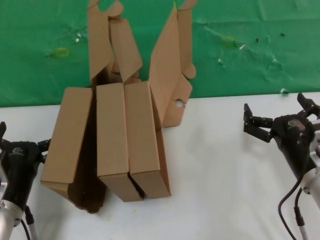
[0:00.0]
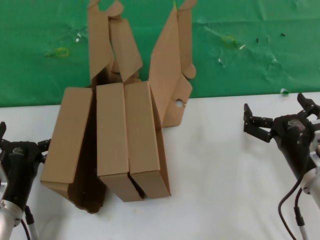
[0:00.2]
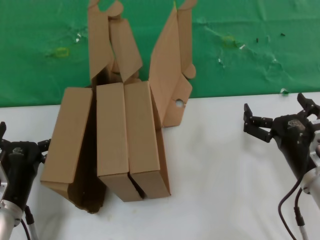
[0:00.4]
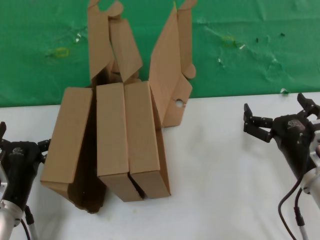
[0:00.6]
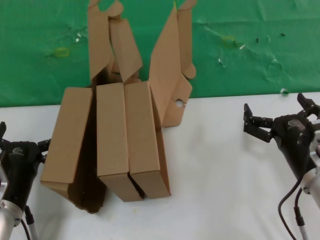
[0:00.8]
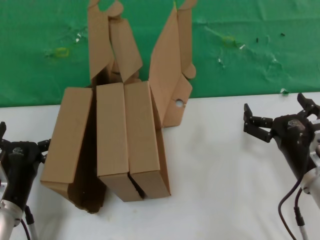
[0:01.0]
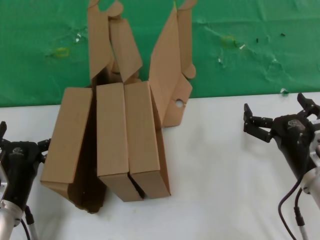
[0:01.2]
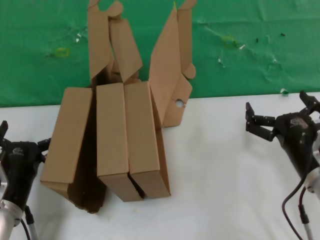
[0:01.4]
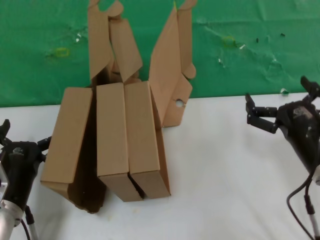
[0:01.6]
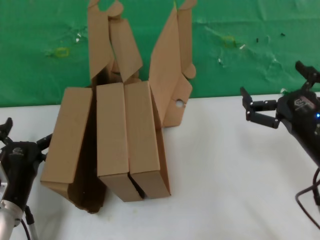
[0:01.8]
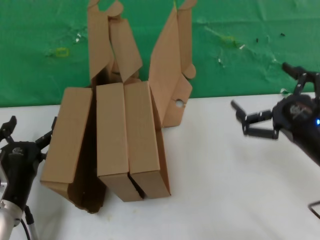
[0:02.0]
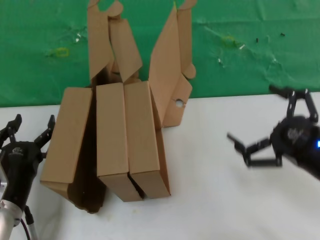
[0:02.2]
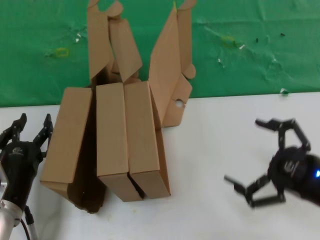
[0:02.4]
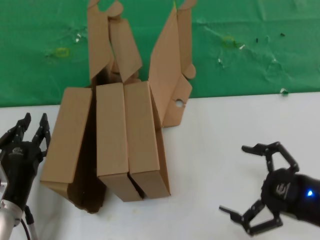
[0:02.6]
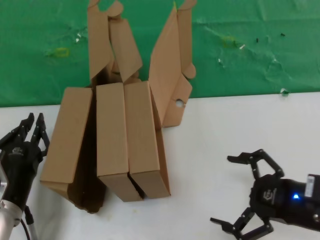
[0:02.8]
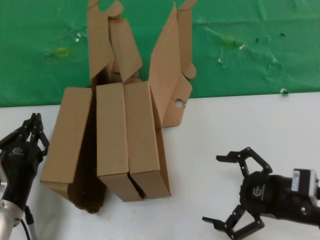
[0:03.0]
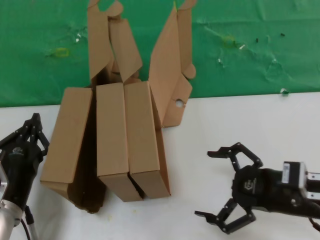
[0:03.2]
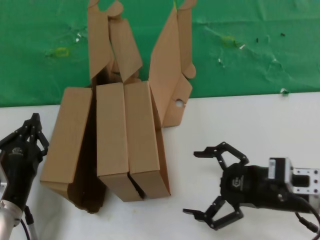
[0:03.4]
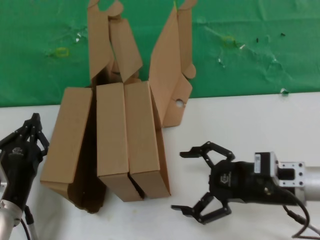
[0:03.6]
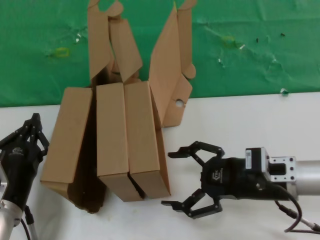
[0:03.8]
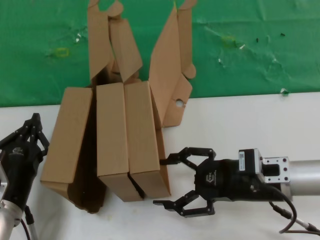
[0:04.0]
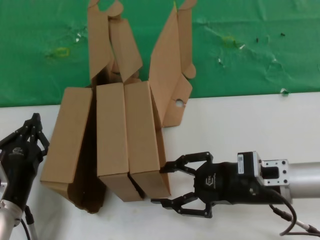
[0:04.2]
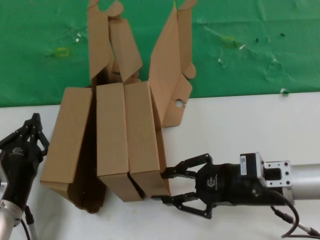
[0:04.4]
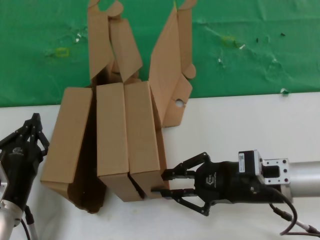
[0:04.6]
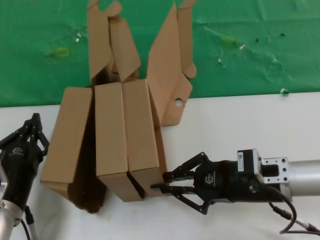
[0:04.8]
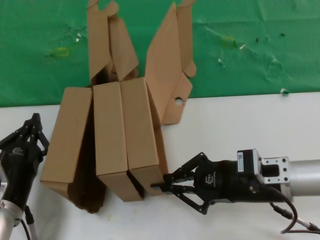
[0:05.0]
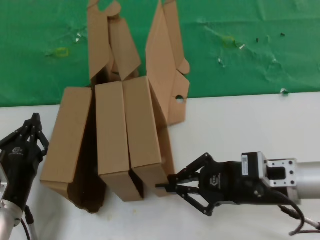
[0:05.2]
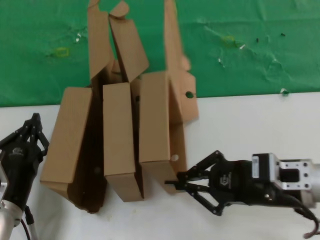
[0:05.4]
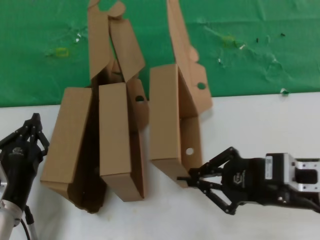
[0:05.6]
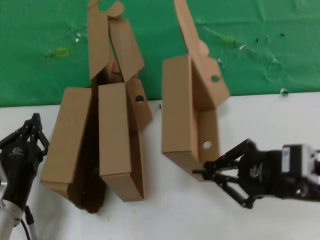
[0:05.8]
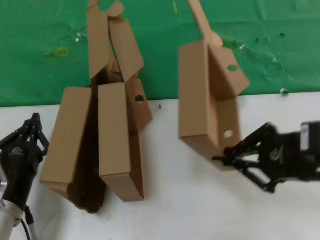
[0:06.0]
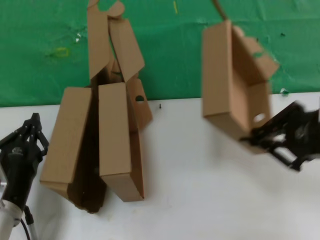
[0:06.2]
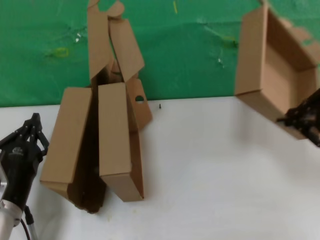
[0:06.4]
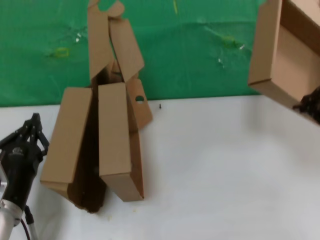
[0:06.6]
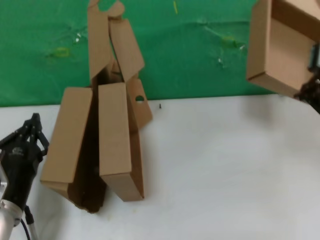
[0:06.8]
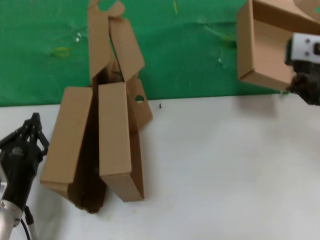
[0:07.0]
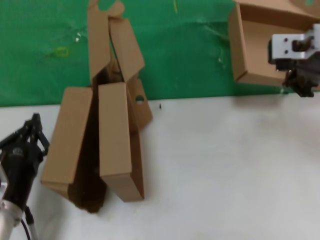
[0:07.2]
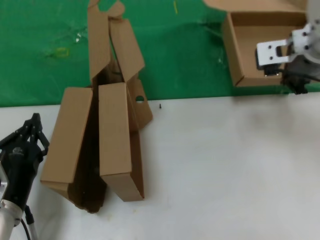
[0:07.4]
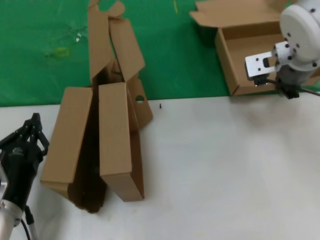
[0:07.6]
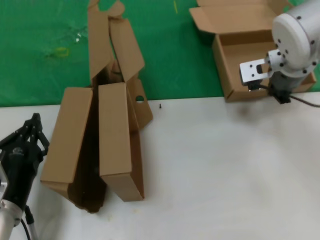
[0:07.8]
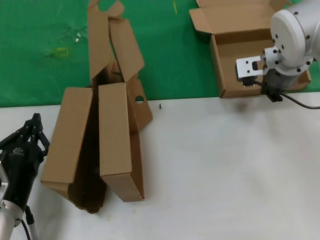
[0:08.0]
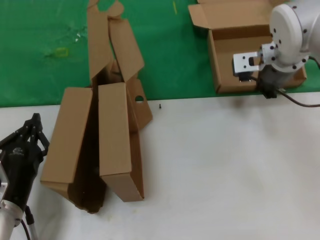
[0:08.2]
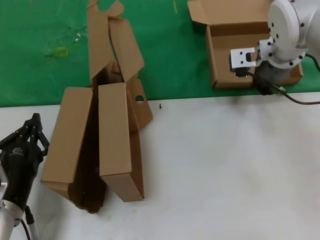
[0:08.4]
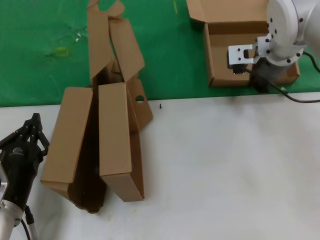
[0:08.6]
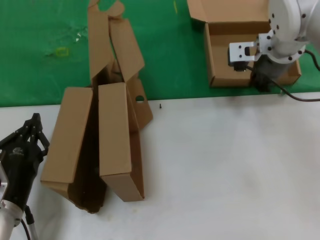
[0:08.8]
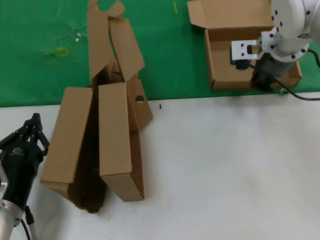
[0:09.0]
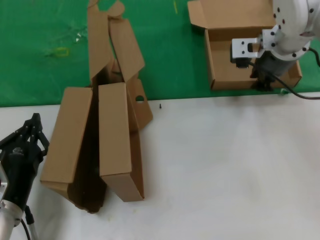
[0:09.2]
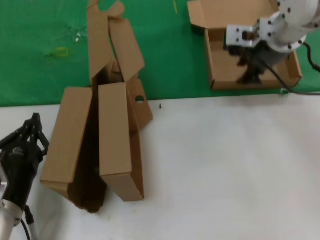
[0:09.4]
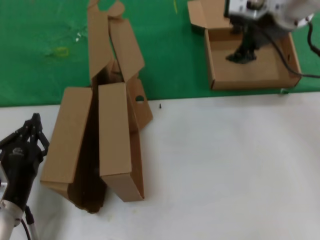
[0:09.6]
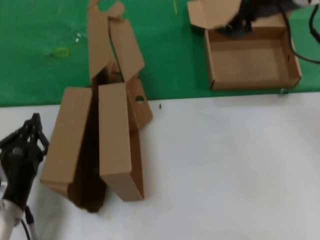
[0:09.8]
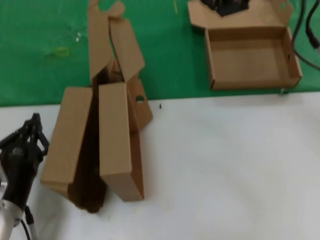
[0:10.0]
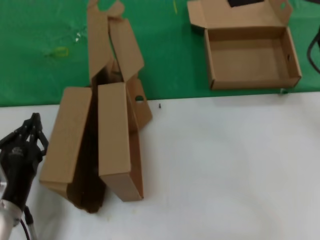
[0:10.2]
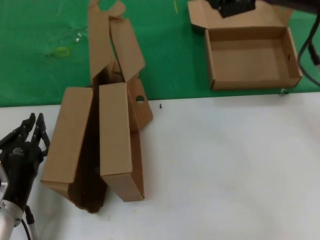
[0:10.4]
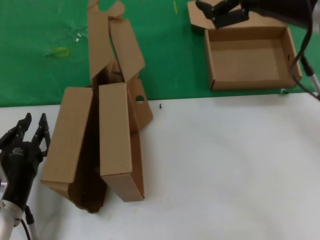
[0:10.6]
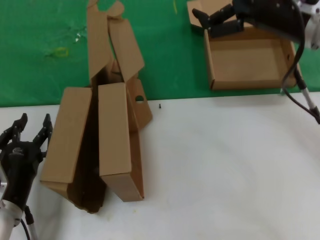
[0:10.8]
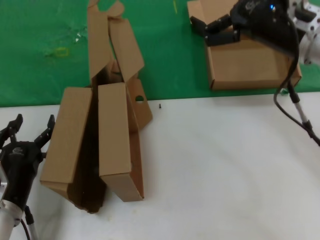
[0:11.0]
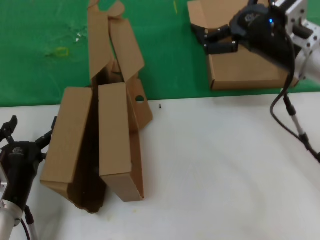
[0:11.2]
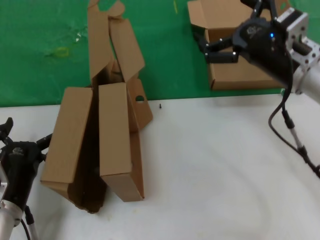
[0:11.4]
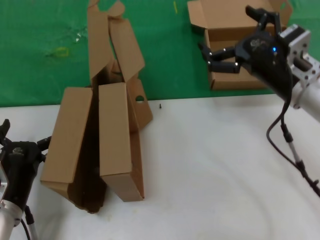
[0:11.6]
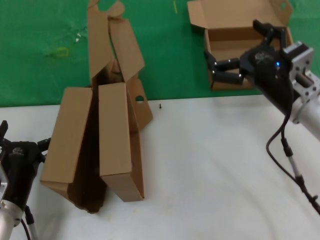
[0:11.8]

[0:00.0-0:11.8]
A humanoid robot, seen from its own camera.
Task of the whole recording: pick up the paper box and put it at the back.
Step, 0:00.0 to 0:05.0: Grasp the paper box.
Step, 0:05.2 to 0:09.2: Place the paper box on the table.
0:00.0 to 0:01.4: The two hands keep their place.
0:01.4 to 0:03.0: The right hand ends up some 5 cm from where it was.
0:03.0 to 0:04.4: The right hand heads forward and to the left, covering some 10 cm.
0:04.4 to 0:06.0: The right hand heads upward and backward, covering approximately 15 cm.
0:06.0 to 0:07.4: The right hand is displaced forward and upward by roughly 20 cm.
0:07.4 to 0:08.8: The right hand is displaced forward by some 10 cm.
0:08.8 to 0:10.4: The right hand travels backward, upward and to the right by roughly 15 cm.
0:10.4 to 0:11.8: The right hand heads downward, covering roughly 20 cm.
